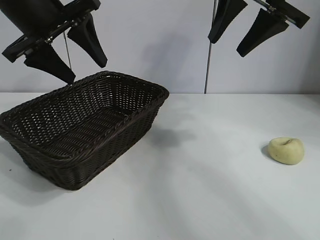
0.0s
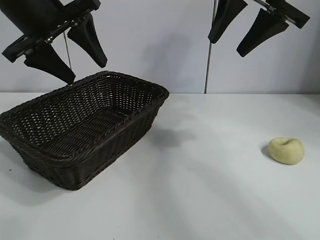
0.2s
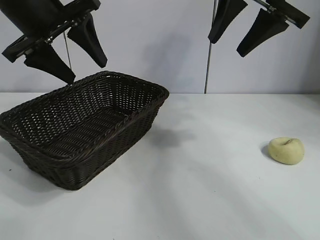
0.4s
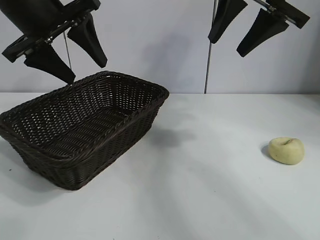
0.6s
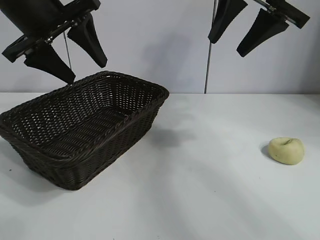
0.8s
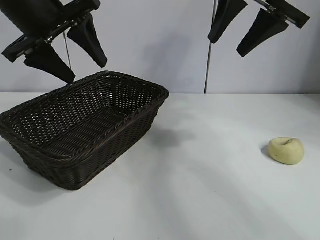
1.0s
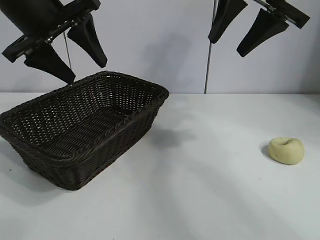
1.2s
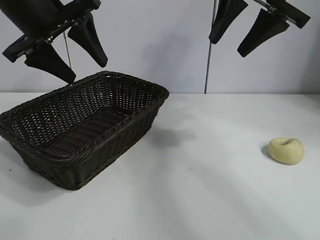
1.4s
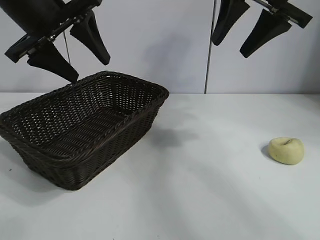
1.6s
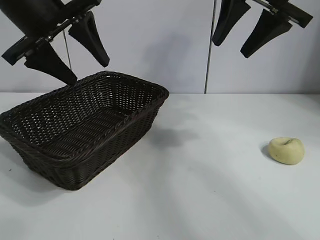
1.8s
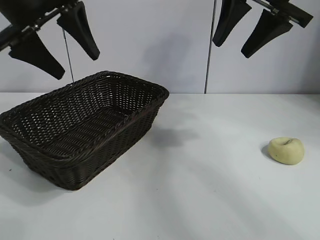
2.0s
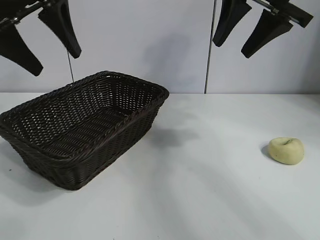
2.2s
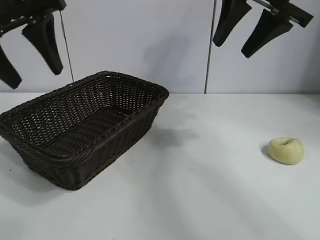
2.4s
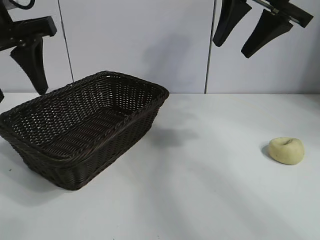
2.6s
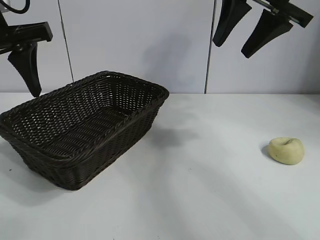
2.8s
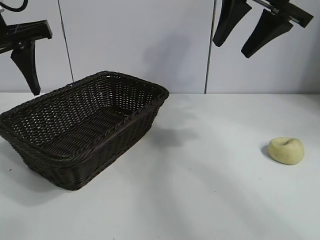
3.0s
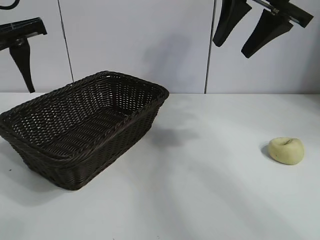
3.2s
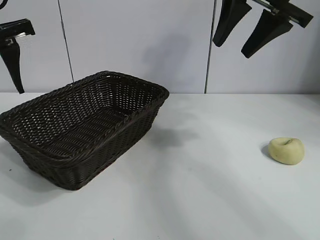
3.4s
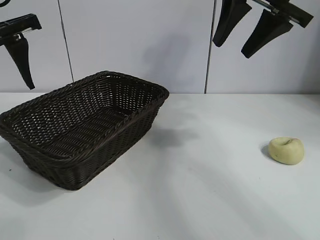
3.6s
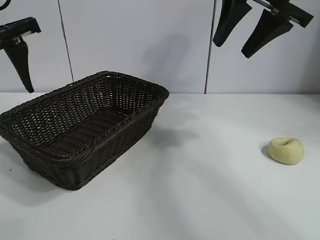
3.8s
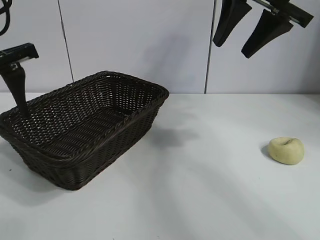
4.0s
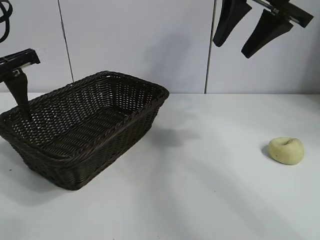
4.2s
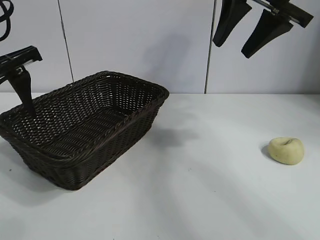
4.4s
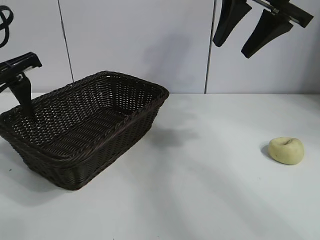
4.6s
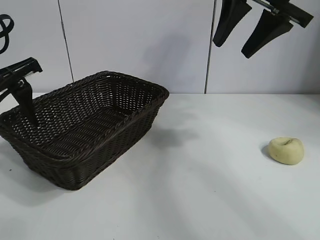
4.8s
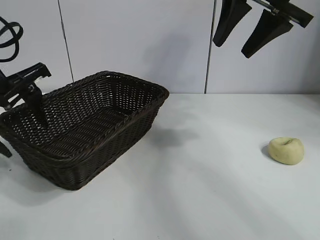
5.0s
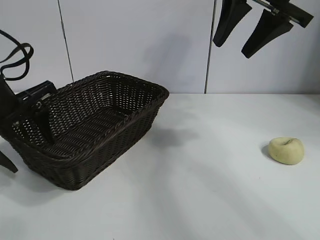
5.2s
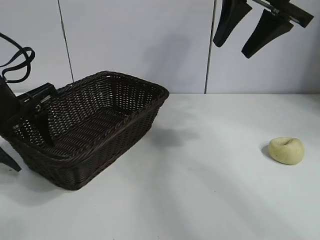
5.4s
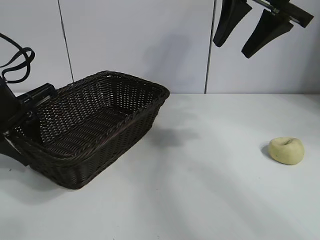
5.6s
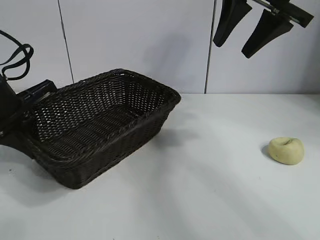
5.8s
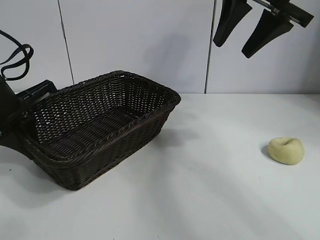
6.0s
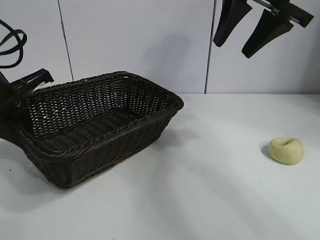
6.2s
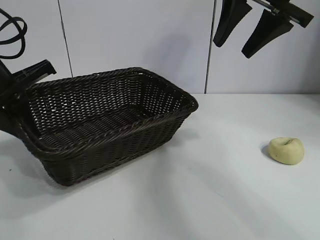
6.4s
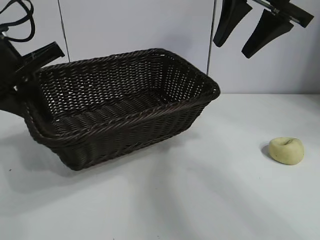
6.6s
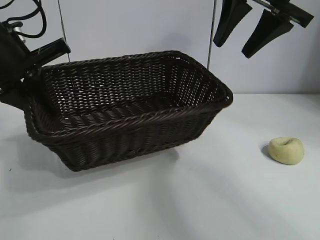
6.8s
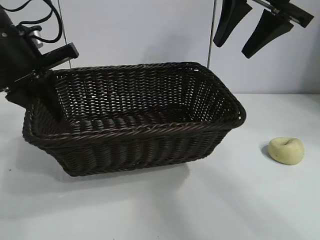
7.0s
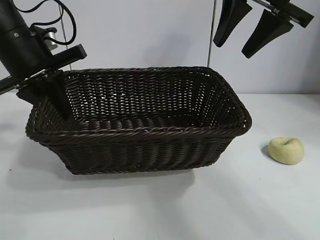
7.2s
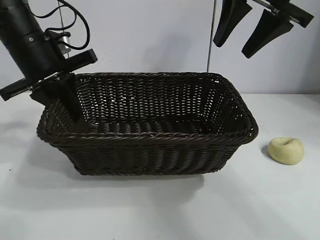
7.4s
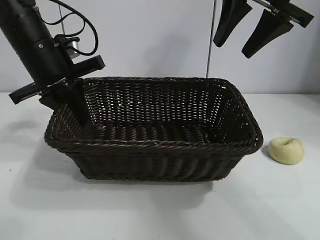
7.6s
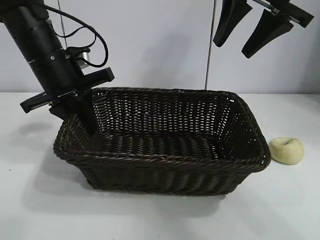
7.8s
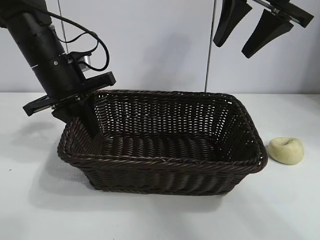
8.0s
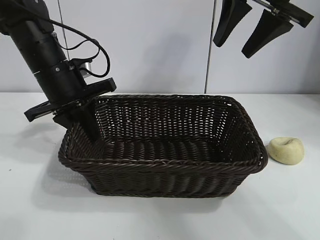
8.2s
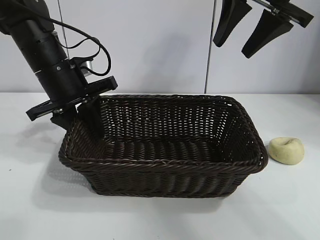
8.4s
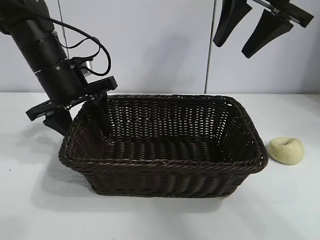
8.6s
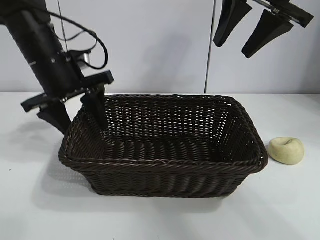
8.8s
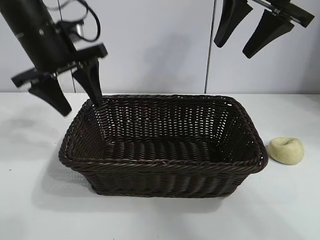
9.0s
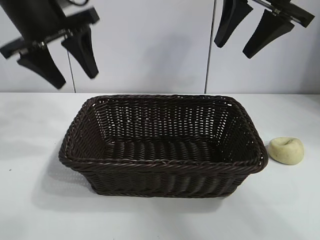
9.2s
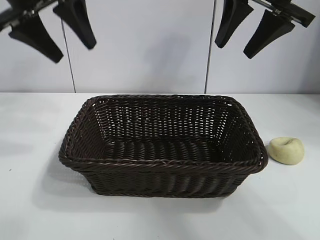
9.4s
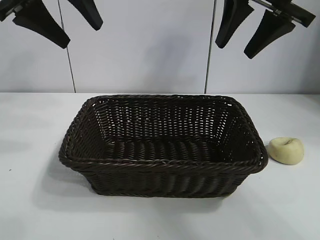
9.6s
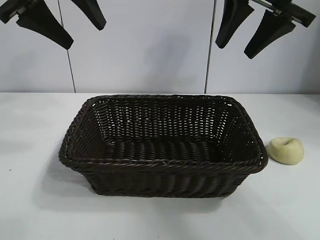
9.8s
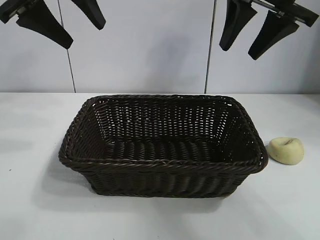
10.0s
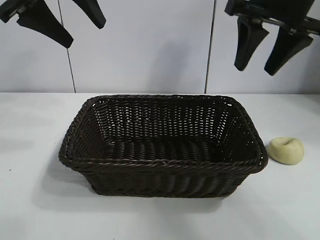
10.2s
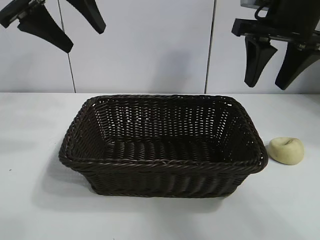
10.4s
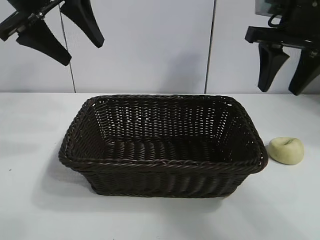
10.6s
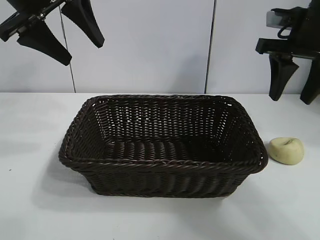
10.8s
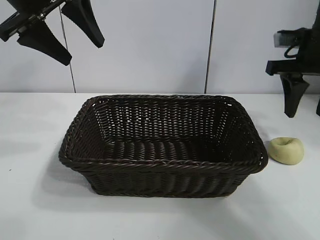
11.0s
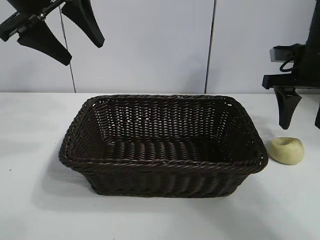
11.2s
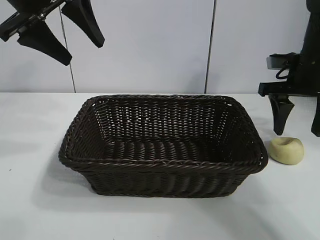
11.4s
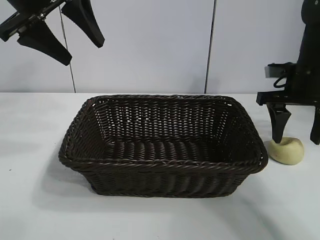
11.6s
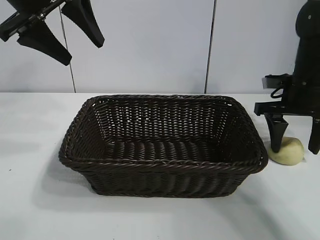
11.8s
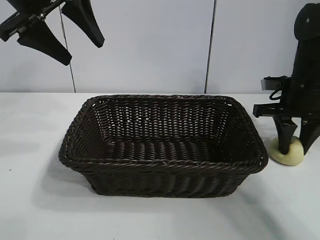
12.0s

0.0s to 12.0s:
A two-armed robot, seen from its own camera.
Task of the whole recording: pick up the egg yolk pastry and put it into the basket.
Step, 1.4s to 5.8s: Grasp the basket with left gripper.
Step, 6.0s to 8.6s: Place the basket in the center of view with left gripper.

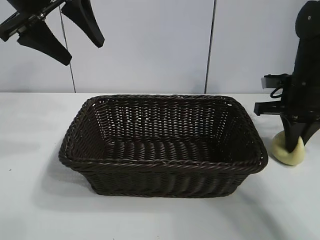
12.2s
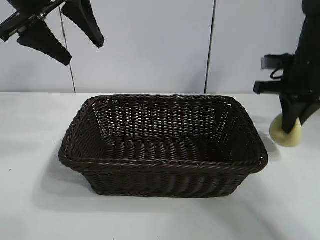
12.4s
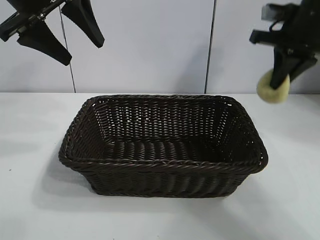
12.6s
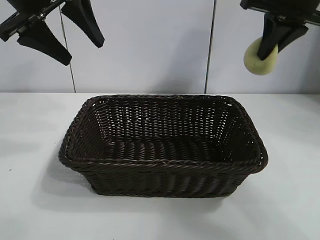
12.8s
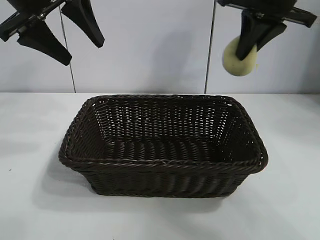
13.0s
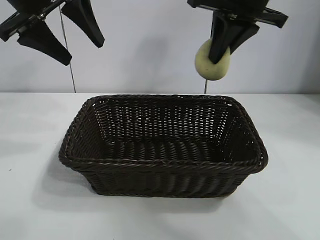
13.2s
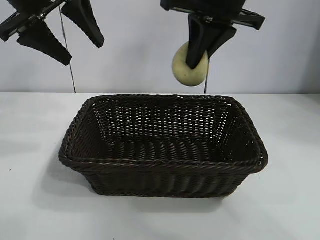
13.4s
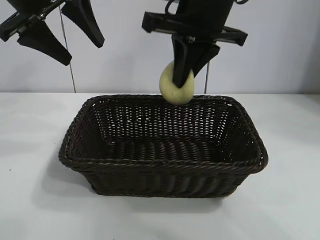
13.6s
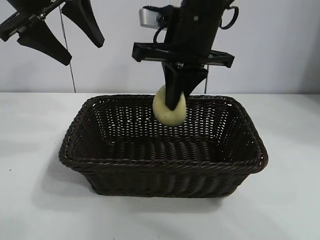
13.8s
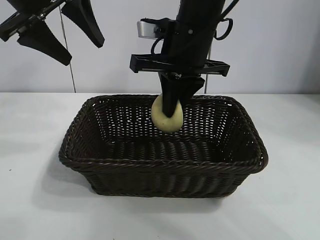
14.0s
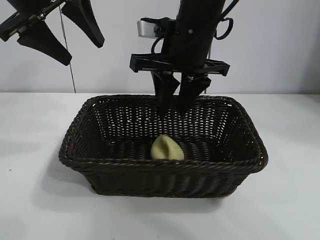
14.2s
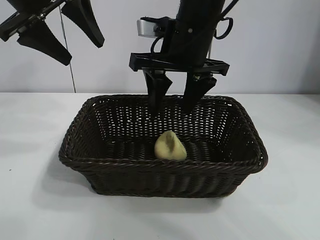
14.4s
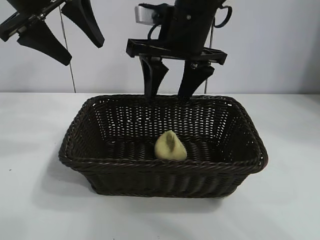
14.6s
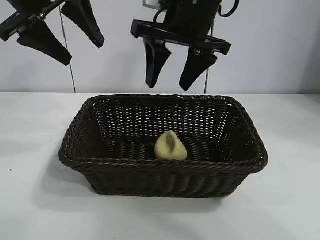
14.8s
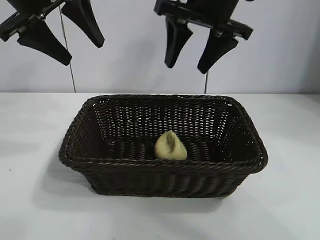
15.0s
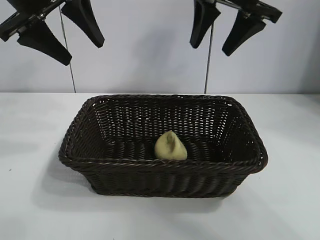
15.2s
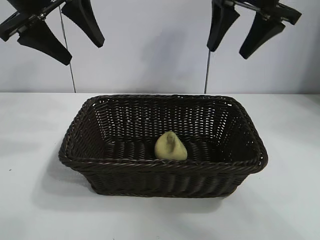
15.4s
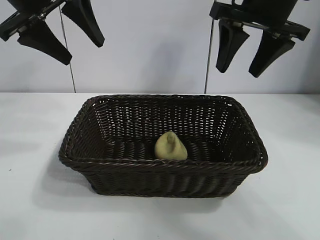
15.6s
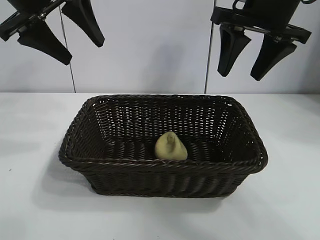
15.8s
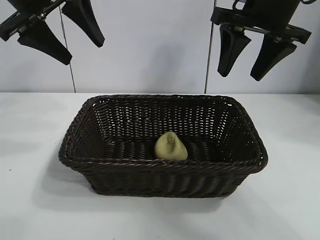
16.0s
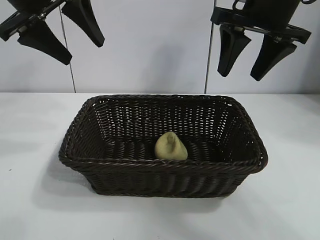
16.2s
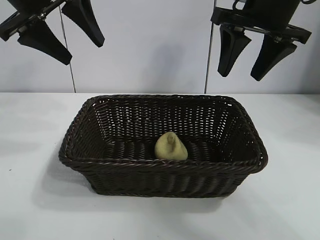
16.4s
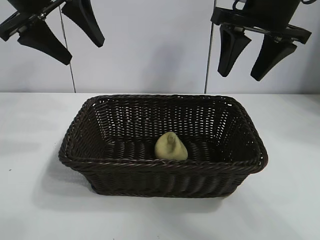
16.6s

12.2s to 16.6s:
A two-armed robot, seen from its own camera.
Task of the whole recording: pick up the egg yolk pastry and put it into the basket.
Step, 12.4s to 14.4s: Place the egg yolk pastry in the basket with right gripper.

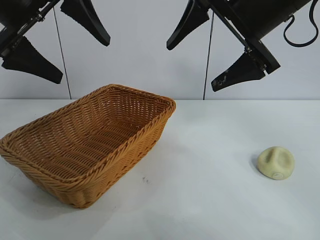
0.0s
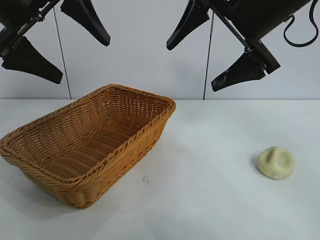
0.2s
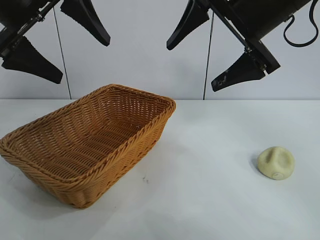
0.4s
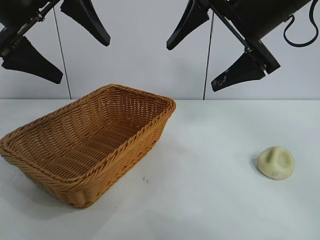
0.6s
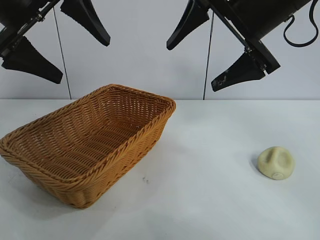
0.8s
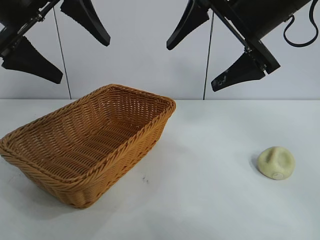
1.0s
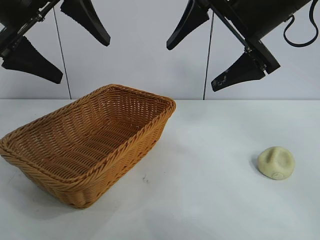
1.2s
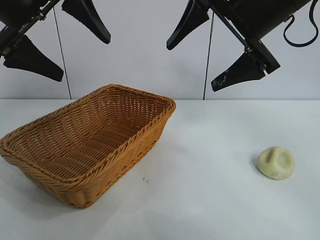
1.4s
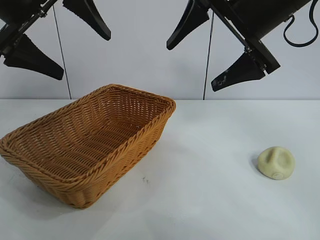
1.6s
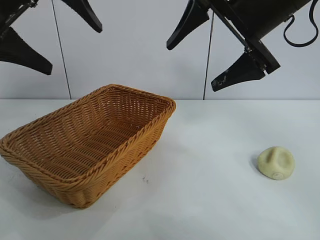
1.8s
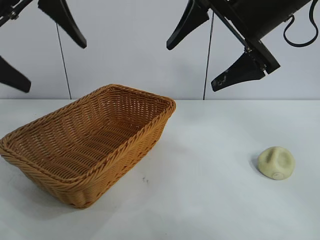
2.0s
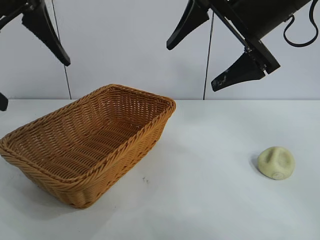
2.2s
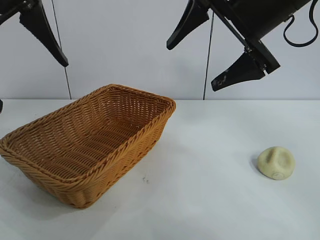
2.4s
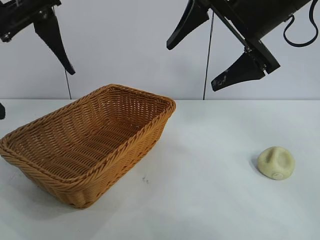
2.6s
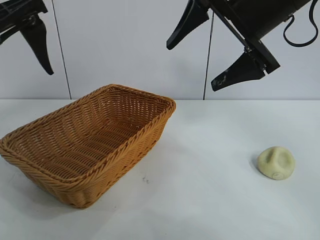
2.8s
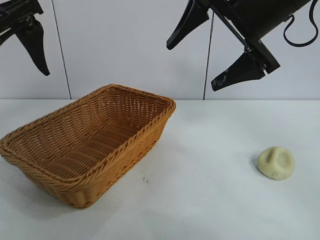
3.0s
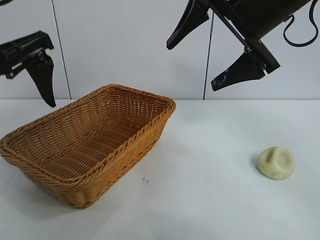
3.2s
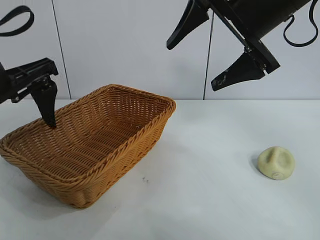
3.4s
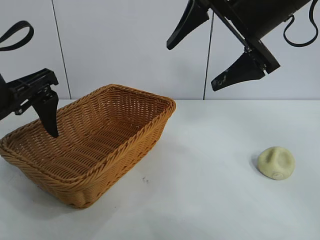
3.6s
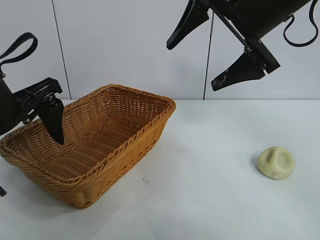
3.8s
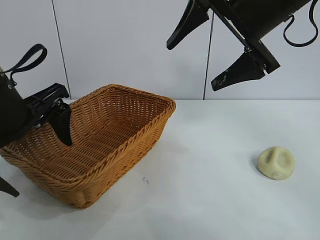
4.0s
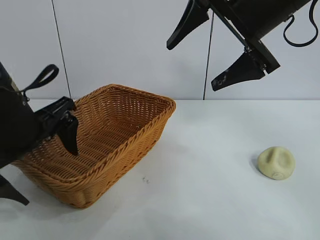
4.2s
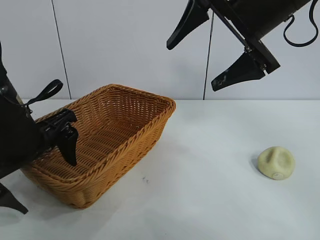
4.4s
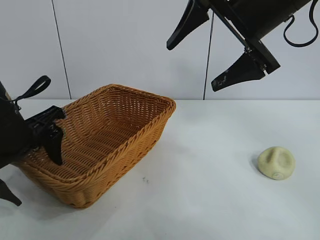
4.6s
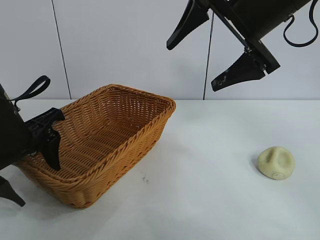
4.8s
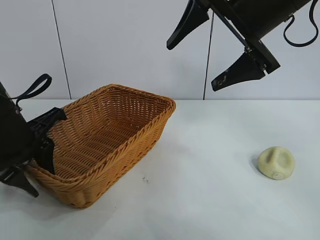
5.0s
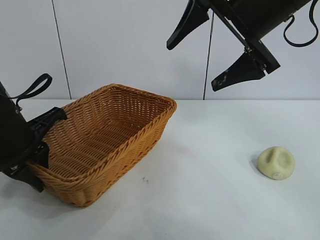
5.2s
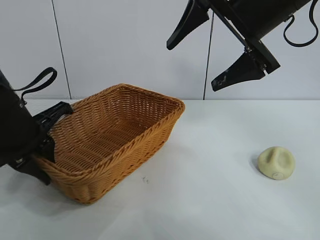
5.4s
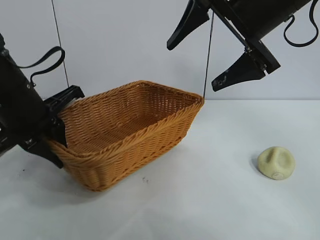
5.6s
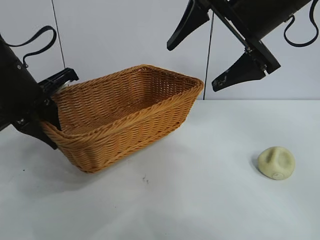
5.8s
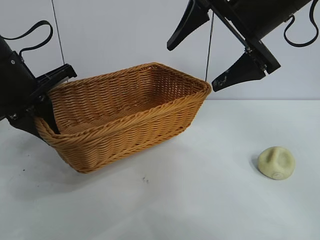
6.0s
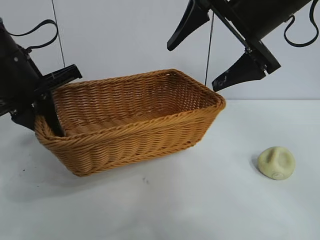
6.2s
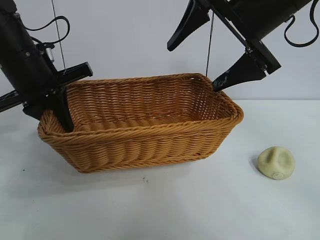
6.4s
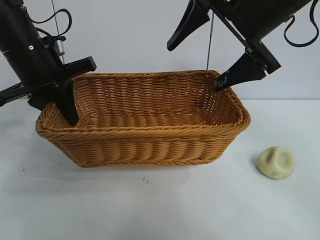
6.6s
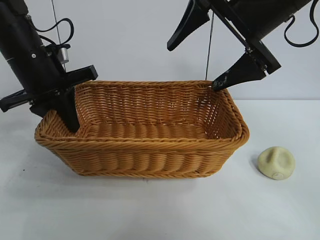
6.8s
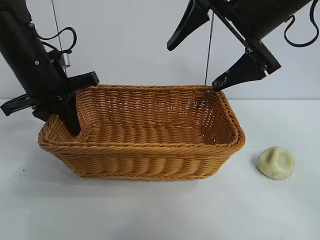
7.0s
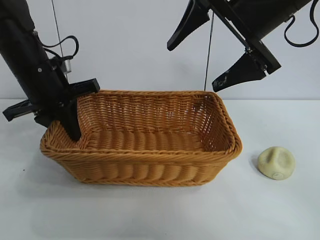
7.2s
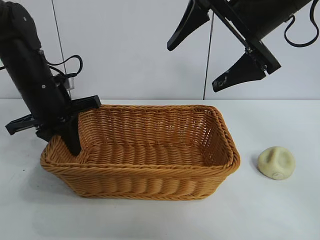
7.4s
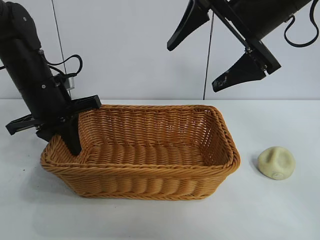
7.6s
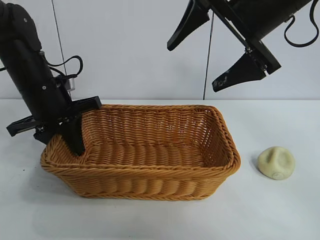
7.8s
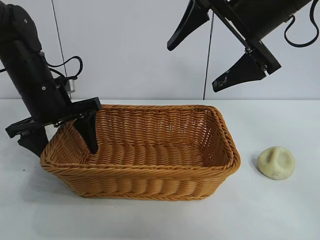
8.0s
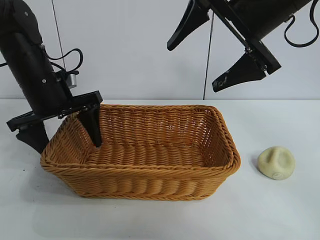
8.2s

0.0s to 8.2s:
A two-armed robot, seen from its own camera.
Task of the whole recording: pick up the egg yolk pastry and put it into the basket.
Step, 1.4s to 5.0s: Grasp the basket with left gripper.
Step, 5.2s to 7.8s: Place the basket in the center of view with left gripper.
